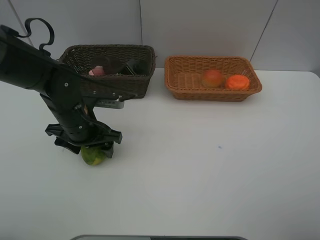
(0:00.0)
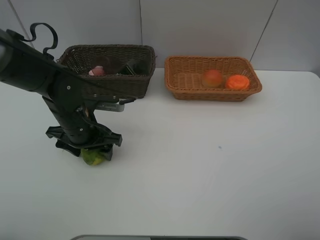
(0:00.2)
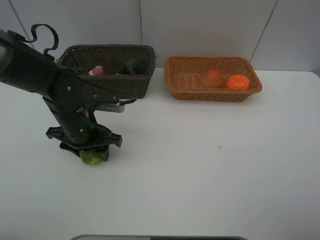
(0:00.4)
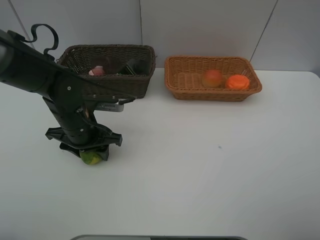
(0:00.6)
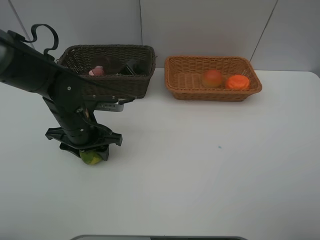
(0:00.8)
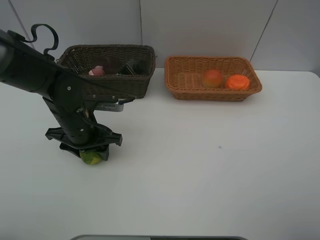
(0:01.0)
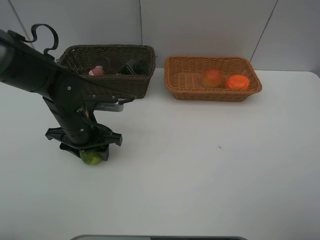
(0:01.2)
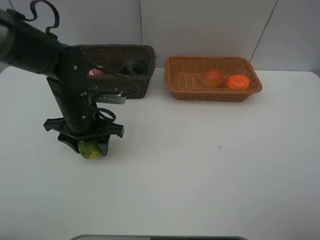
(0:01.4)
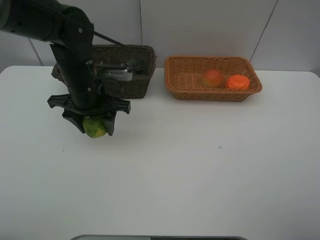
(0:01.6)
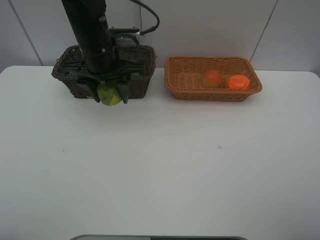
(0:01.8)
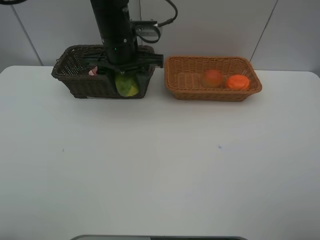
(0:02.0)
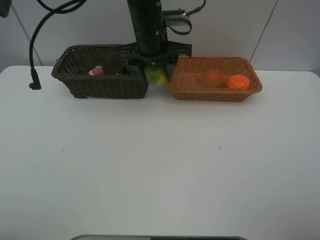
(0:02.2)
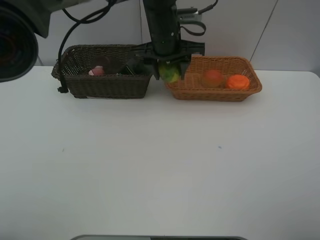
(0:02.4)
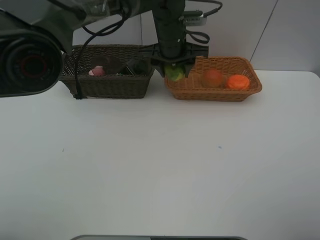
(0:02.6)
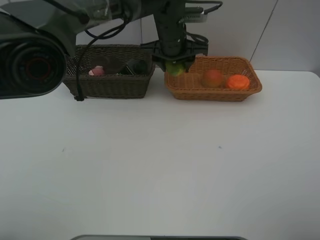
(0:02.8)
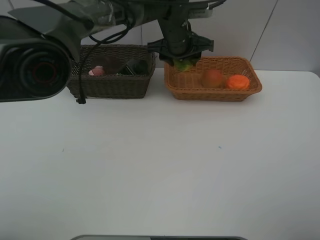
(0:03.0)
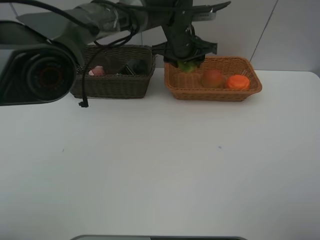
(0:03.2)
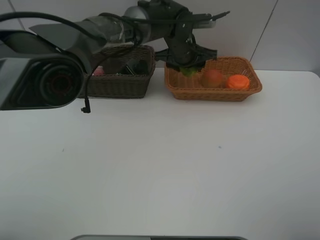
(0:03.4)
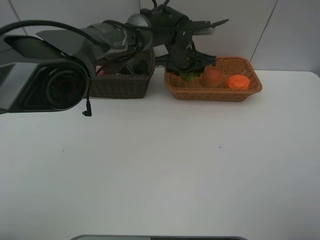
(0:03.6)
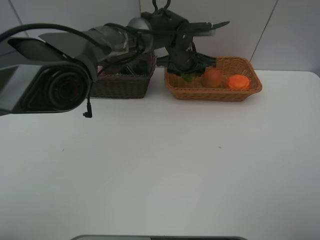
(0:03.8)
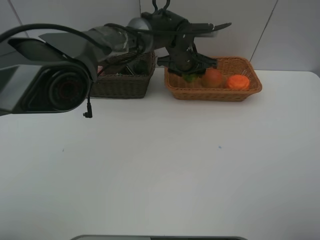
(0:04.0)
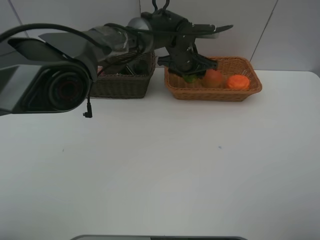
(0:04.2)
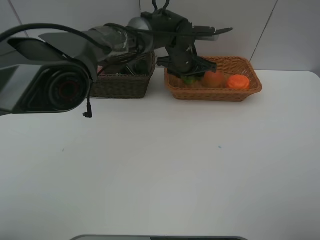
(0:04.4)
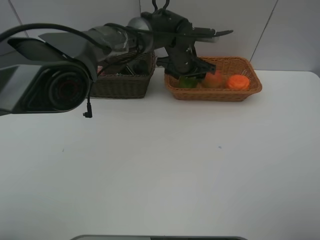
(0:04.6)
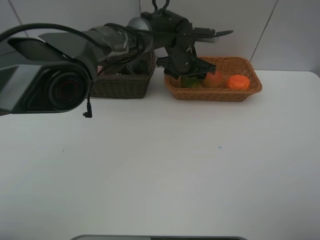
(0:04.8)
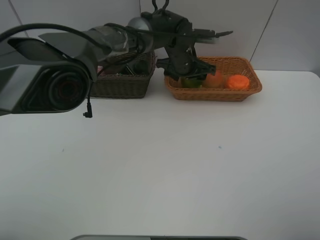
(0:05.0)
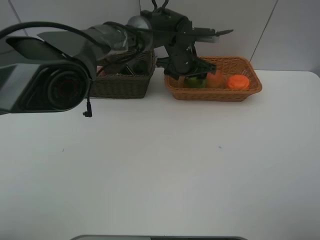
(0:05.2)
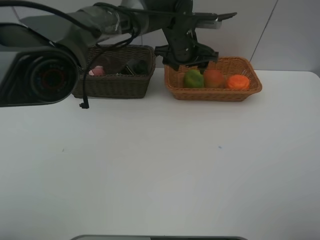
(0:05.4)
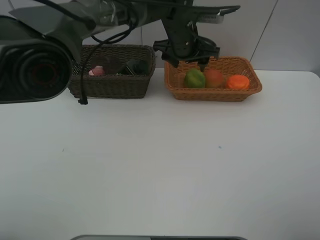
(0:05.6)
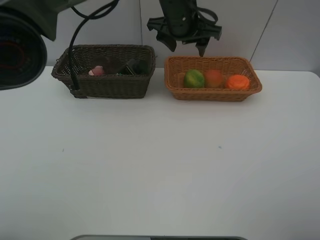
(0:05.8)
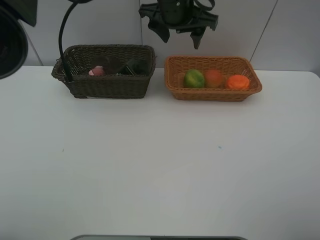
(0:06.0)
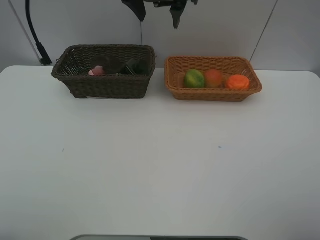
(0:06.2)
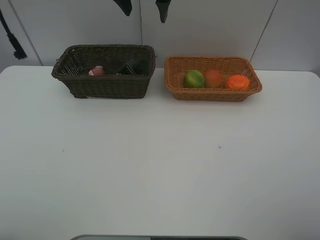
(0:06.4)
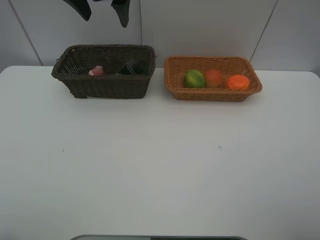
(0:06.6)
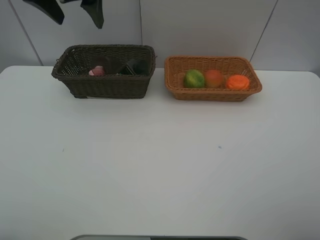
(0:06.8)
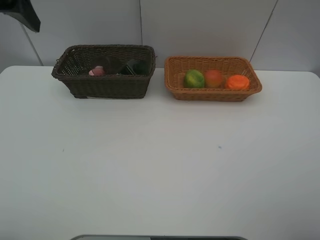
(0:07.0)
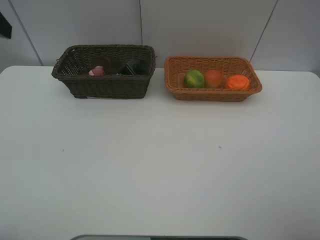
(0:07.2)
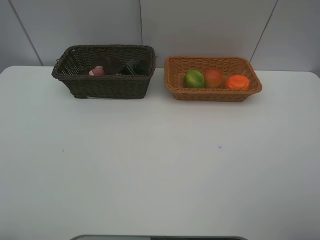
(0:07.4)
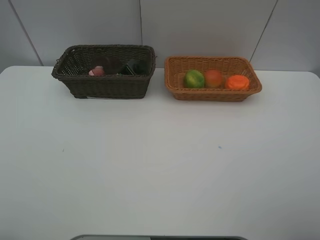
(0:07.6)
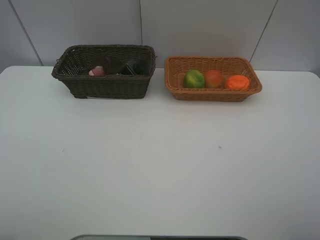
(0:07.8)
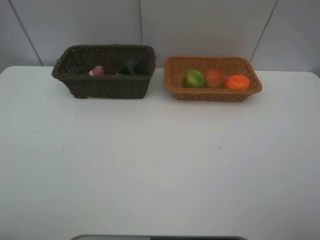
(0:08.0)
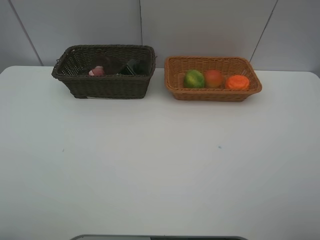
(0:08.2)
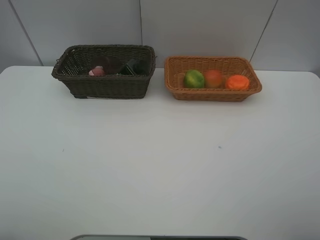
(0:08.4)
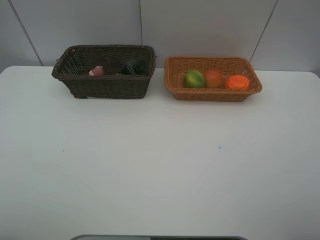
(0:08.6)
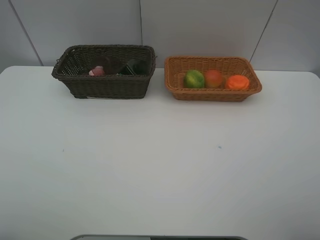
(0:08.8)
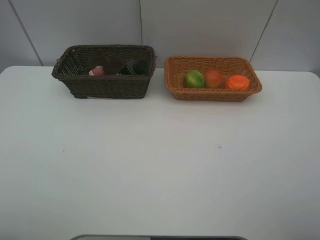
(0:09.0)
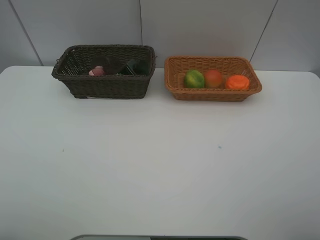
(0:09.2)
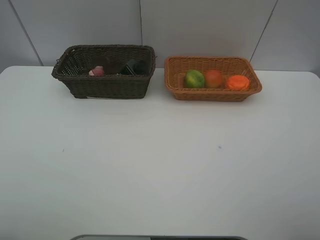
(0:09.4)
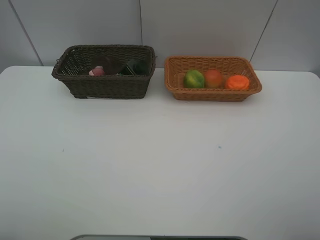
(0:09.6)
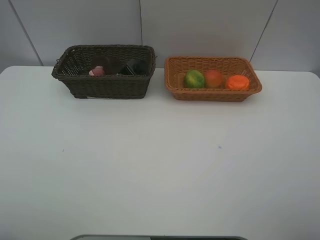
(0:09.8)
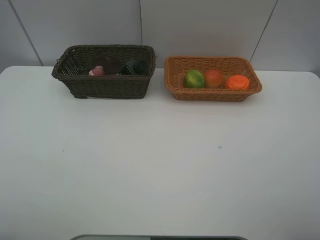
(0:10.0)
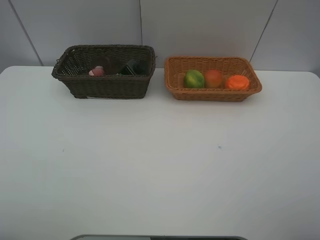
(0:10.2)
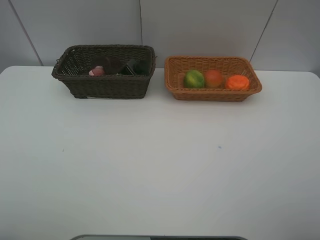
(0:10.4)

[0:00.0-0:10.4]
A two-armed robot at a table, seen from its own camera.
Task of the whole recording: place multiple objects separately in different baskets.
0:00.0 to 0:01.4: The grippers make only small movements.
0:01.4 to 0:03.0: The left gripper is displaced to the right and forward by roughly 25 cm.
0:03.0 to 0:04.4: The left gripper heads downward, covering about 5 cm.
0:04.4 to 0:06.0: The left gripper moves upward, about 15 cm.
0:06.0 to 0:07.4: The left gripper shifts about 40 cm to the left and backward.

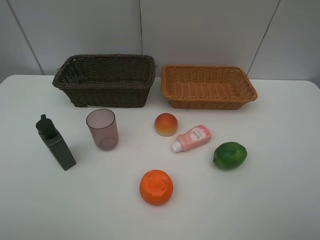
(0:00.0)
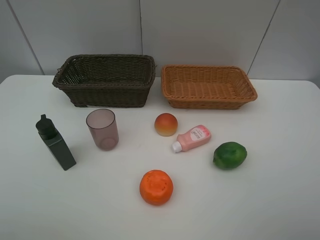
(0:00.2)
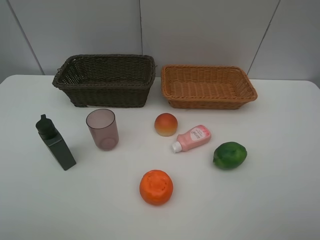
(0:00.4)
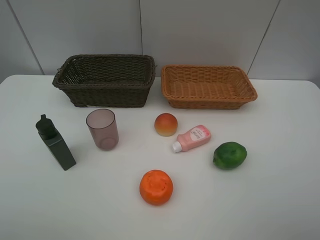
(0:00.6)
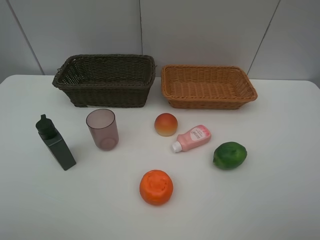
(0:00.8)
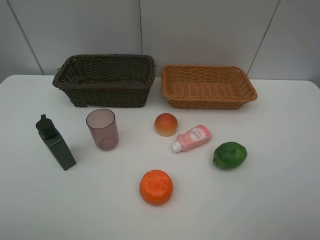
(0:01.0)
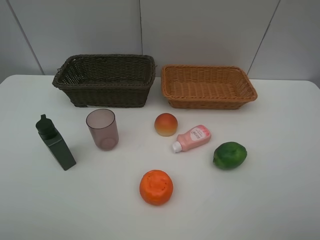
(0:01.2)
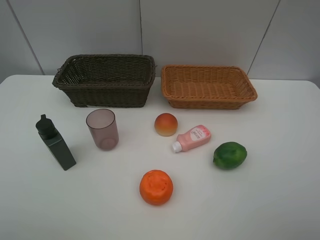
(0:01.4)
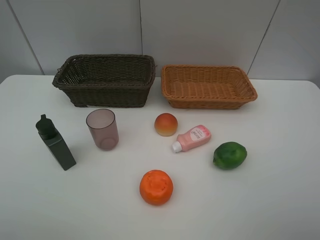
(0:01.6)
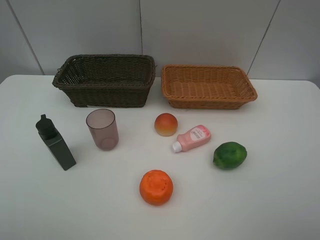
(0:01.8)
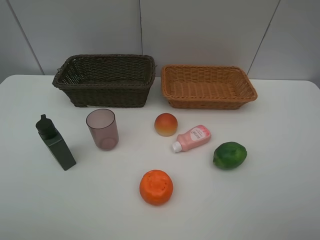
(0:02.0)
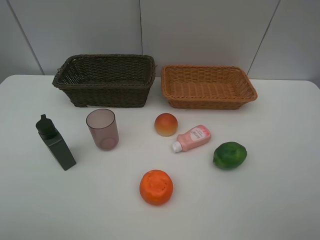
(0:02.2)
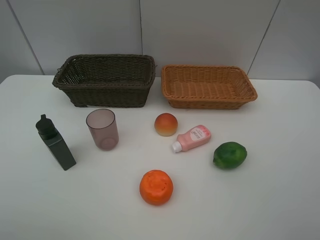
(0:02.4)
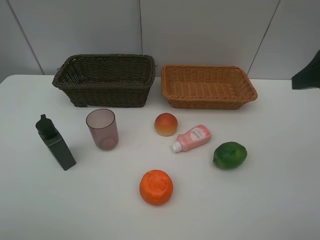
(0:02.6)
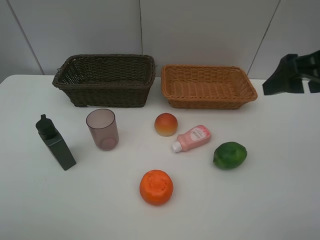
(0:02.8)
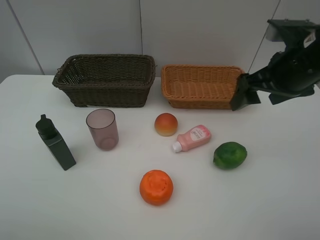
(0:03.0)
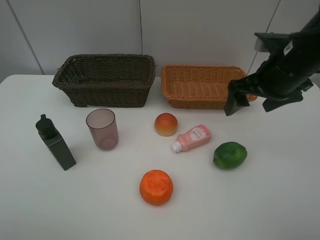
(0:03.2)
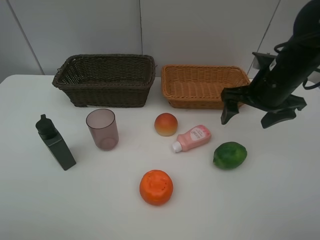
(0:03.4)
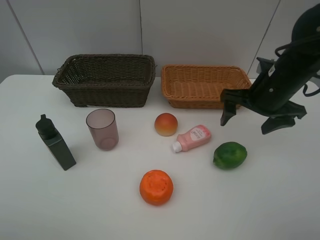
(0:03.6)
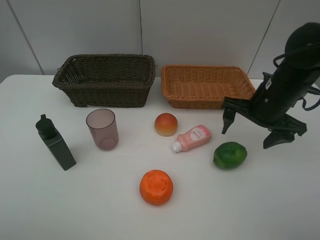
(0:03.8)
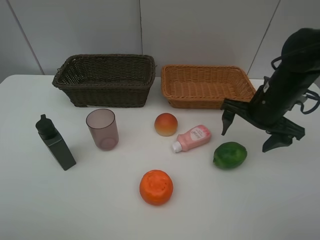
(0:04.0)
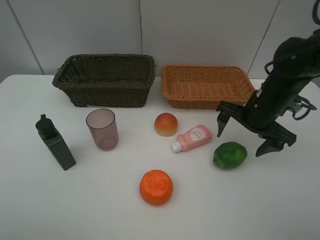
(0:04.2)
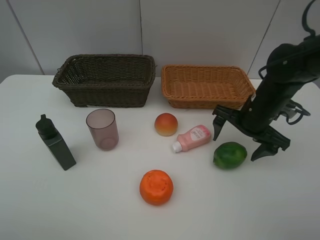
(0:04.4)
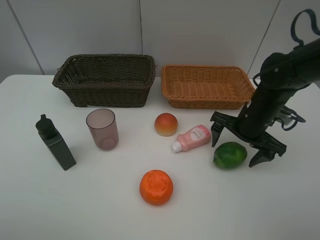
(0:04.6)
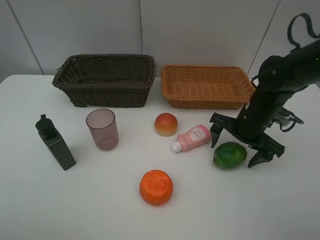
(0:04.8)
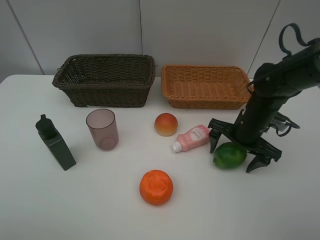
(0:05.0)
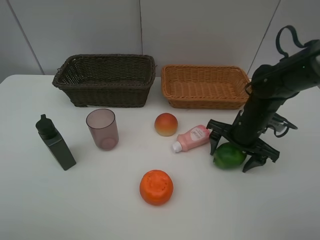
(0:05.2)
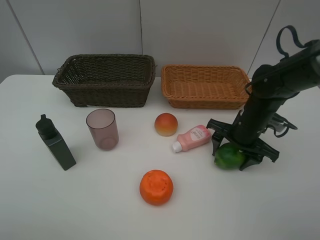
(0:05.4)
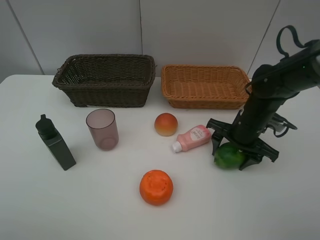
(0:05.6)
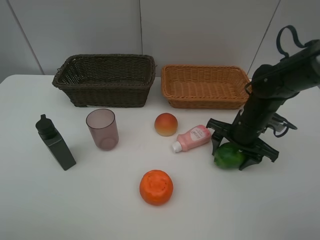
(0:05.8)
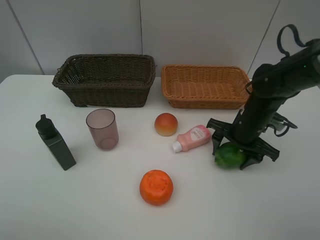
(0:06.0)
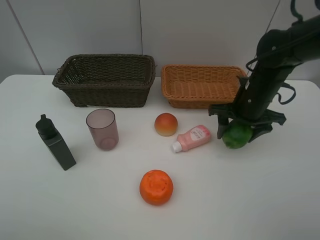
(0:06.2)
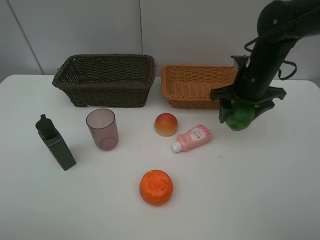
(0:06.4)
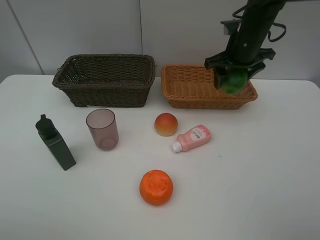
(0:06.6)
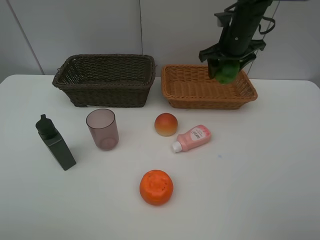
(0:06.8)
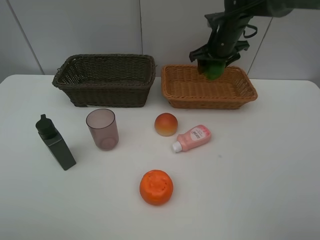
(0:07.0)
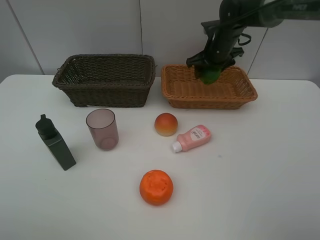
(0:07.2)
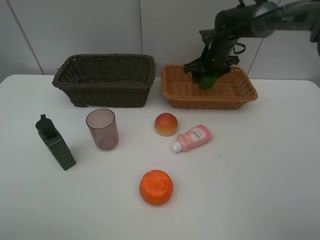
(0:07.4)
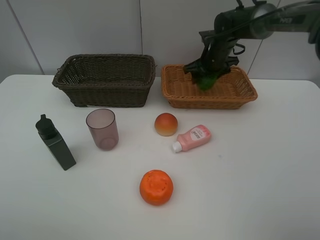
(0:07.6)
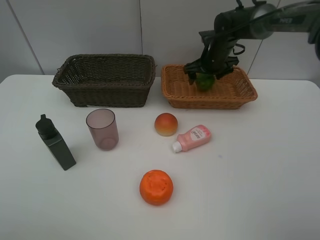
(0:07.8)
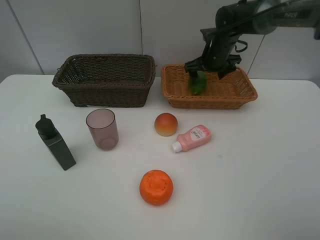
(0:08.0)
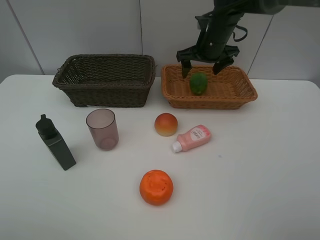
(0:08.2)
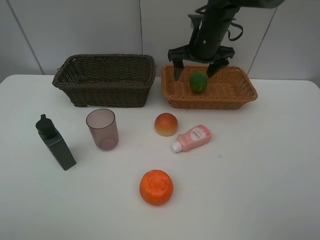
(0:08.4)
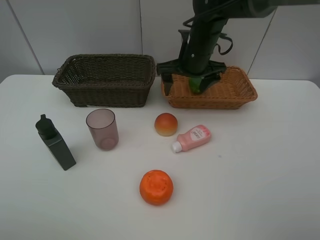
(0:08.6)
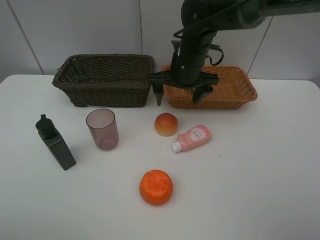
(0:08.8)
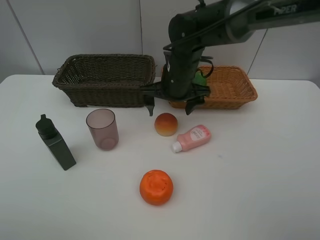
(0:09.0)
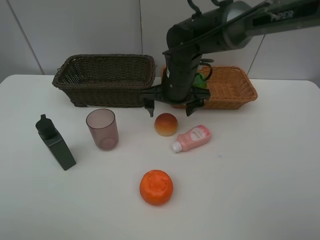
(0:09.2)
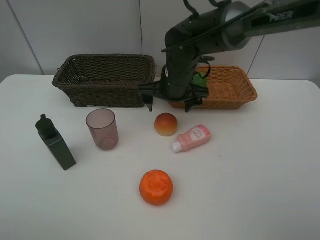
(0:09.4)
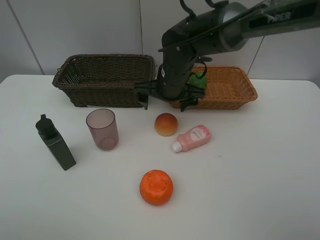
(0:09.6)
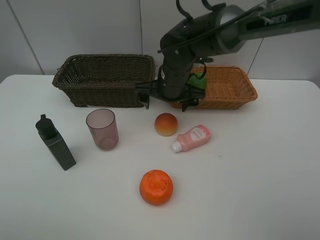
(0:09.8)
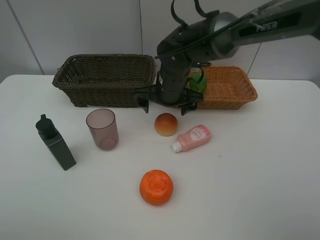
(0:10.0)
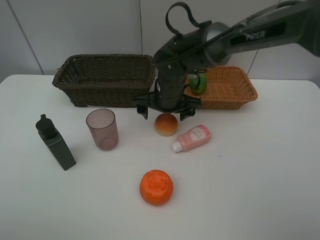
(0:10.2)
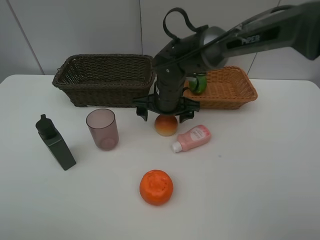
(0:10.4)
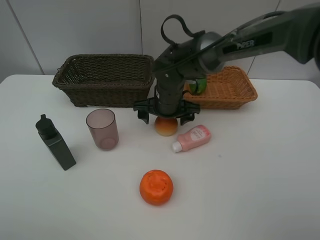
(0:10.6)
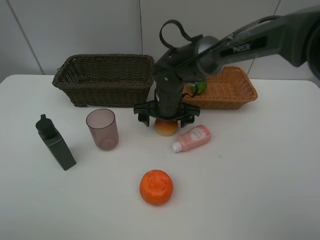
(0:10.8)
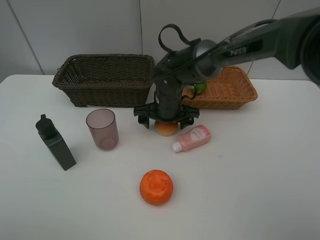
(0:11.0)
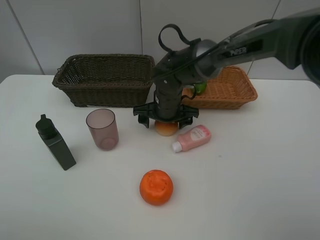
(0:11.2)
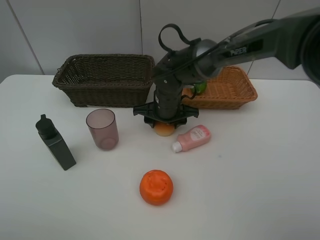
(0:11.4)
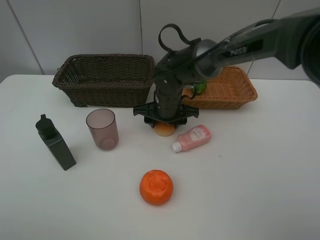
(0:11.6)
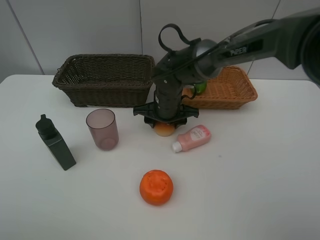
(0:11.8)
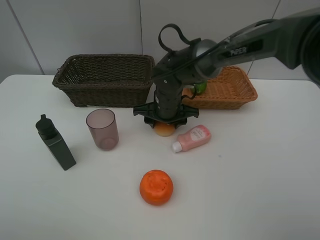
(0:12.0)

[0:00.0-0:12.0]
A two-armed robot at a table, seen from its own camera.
Task of the whole recording: place multiple objects separately in different baskets.
Step, 0:00.0 to 0:06.2: Pick up the lime with right gripper.
Step, 0:06.4 to 0:08.0: Place the lime in the light basket with right gripper.
0:00.0 to 0:01.6: Both grippers stay about where they are.
0:01.6 to 0:03.0: The right gripper goes about 25 cm forward.
0:03.0 to 0:04.4: The right gripper travels downward by roughly 10 cm.
0:04.4 to 0:06.0: The right gripper closes.
0:06.0 to 0:07.6: The right gripper is displaced forward by about 20 cm.
0:07.6 to 0:09.0: The right gripper heads backward and to the left, covering approximately 20 cm, and opens.
0:09.0 to 0:10.4: The grippers move only a little.
0:10.4 to 0:12.0: The right gripper closes.
